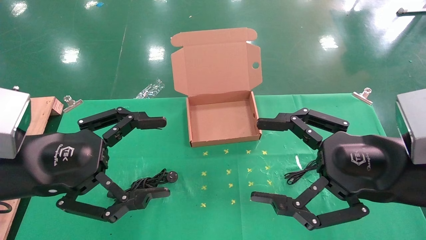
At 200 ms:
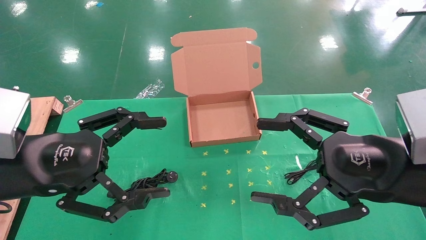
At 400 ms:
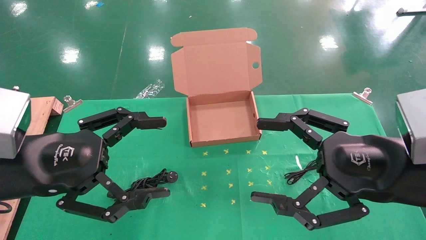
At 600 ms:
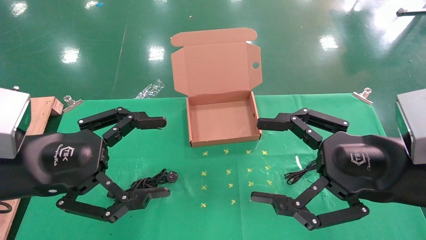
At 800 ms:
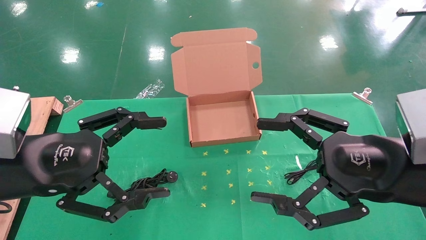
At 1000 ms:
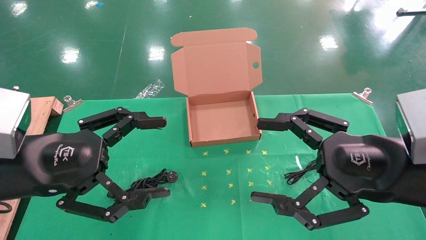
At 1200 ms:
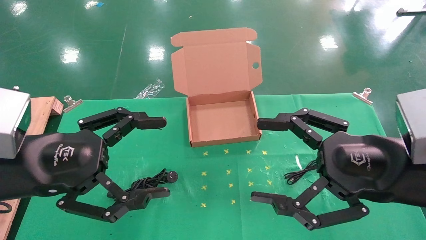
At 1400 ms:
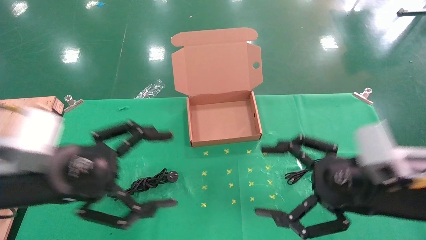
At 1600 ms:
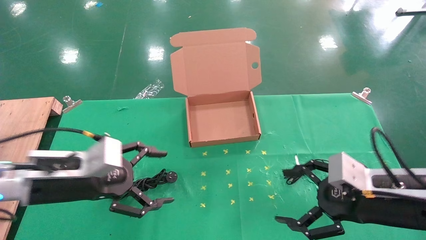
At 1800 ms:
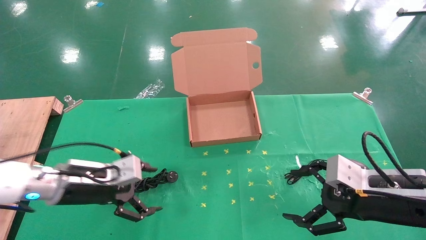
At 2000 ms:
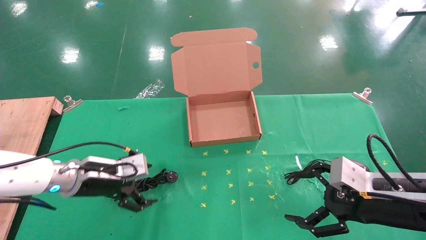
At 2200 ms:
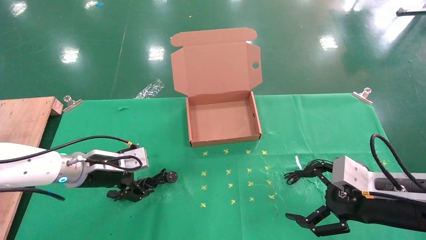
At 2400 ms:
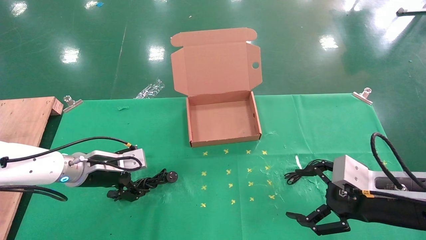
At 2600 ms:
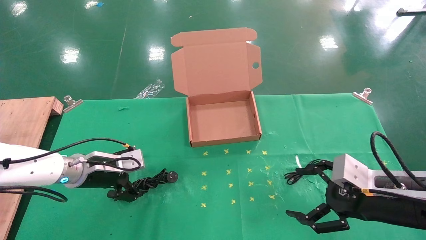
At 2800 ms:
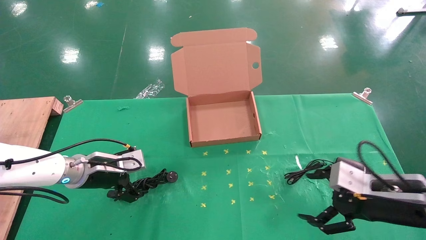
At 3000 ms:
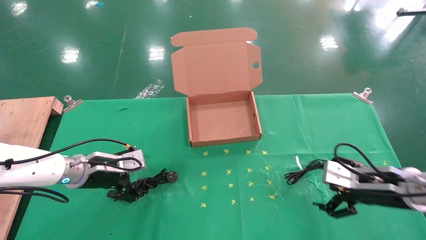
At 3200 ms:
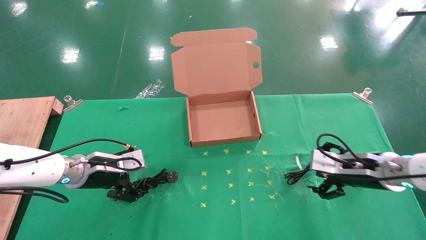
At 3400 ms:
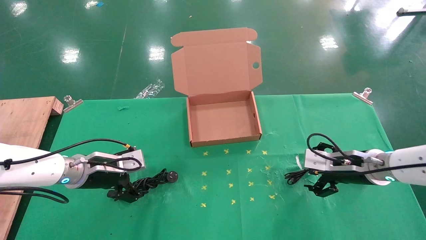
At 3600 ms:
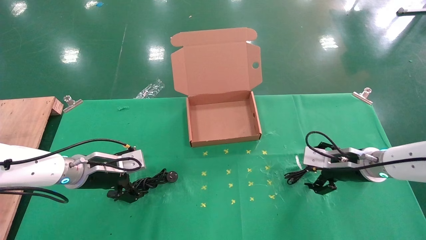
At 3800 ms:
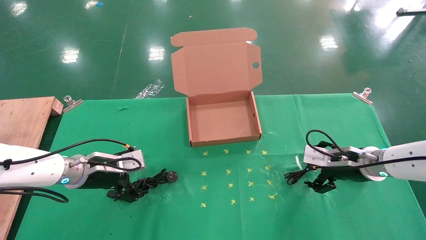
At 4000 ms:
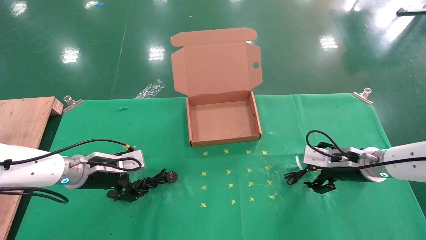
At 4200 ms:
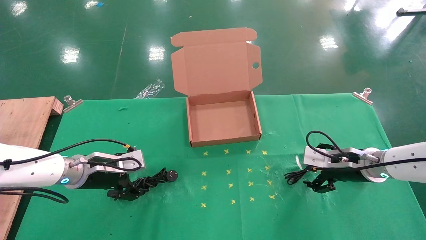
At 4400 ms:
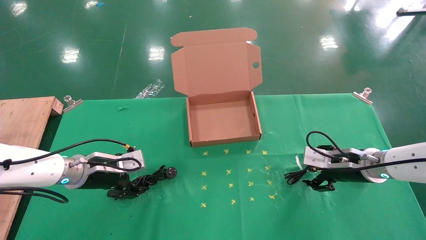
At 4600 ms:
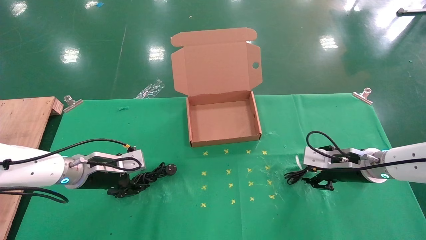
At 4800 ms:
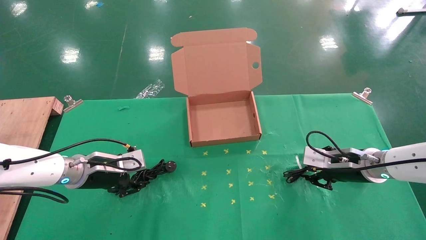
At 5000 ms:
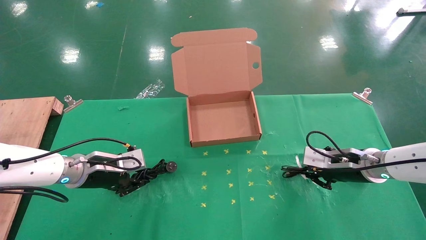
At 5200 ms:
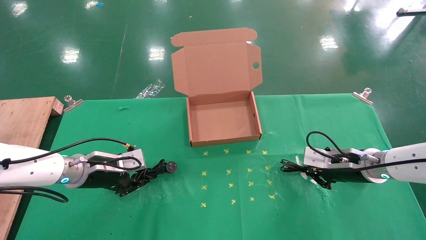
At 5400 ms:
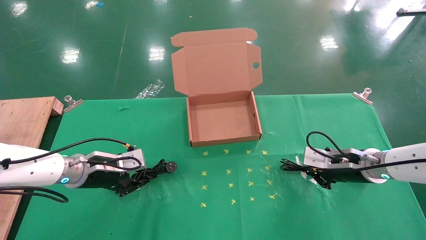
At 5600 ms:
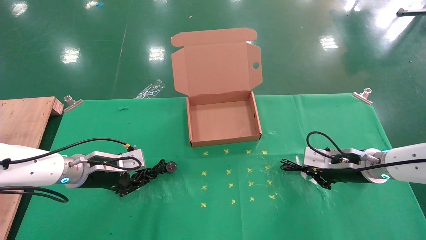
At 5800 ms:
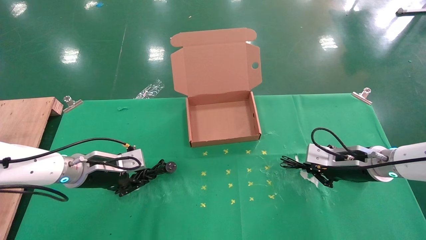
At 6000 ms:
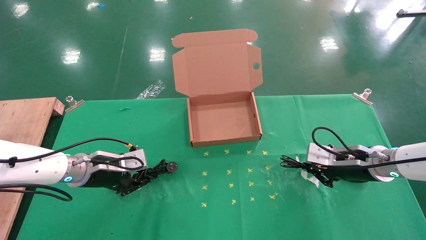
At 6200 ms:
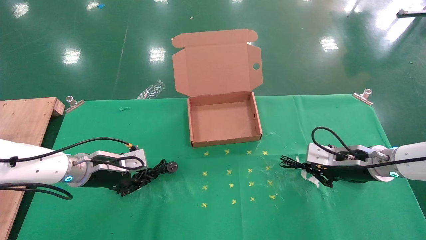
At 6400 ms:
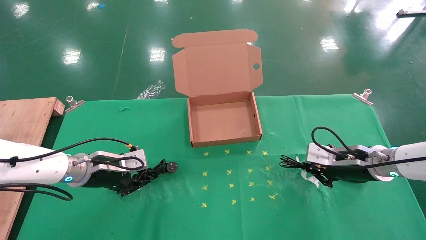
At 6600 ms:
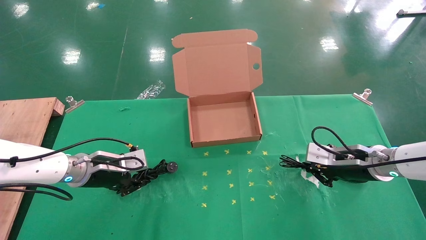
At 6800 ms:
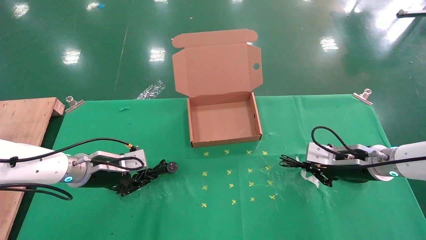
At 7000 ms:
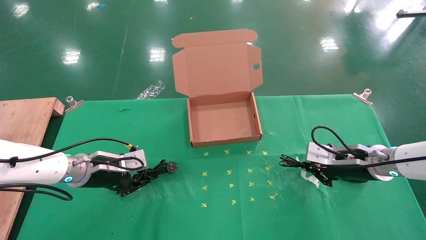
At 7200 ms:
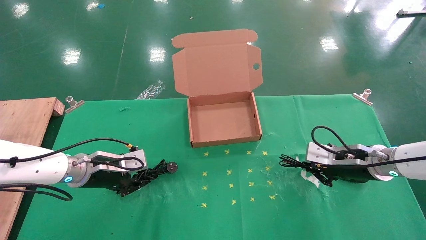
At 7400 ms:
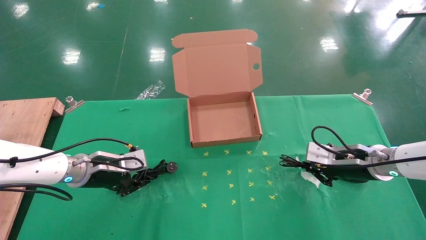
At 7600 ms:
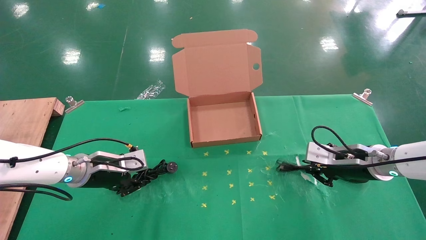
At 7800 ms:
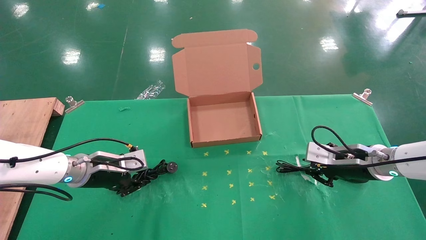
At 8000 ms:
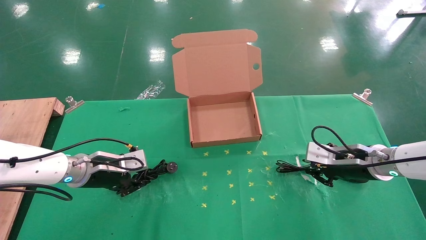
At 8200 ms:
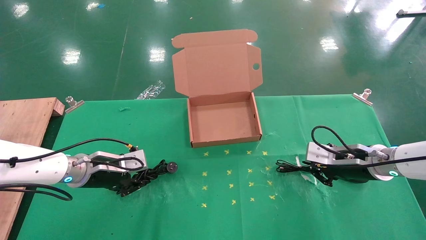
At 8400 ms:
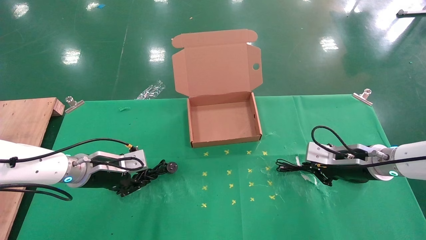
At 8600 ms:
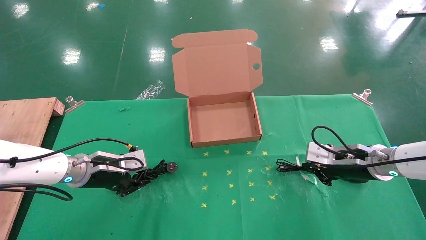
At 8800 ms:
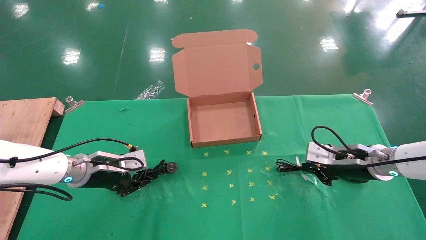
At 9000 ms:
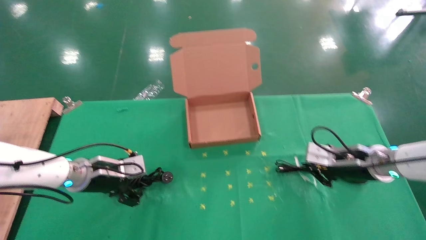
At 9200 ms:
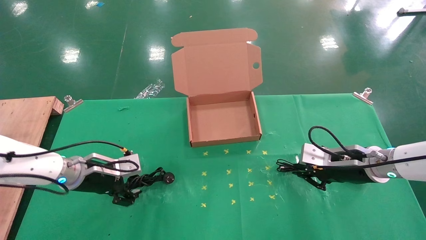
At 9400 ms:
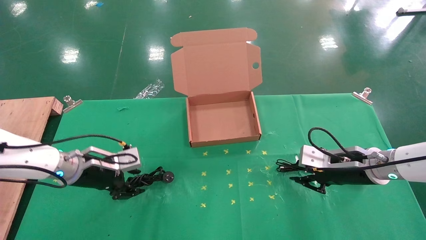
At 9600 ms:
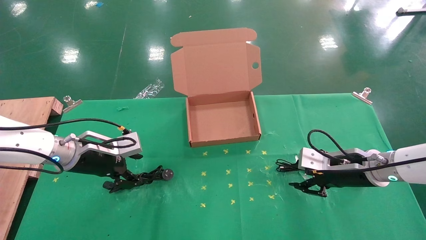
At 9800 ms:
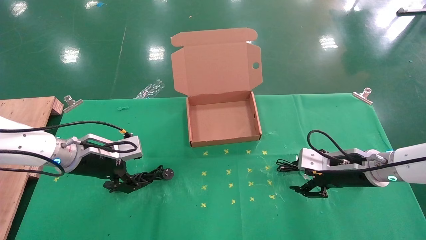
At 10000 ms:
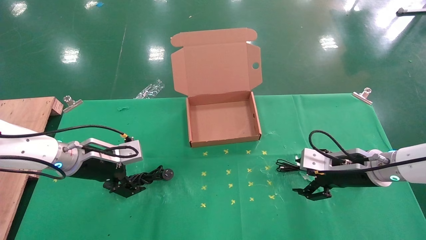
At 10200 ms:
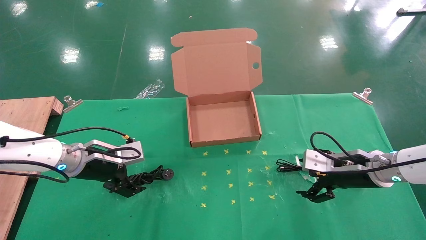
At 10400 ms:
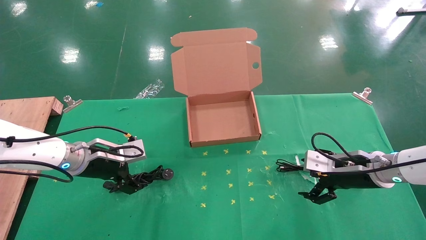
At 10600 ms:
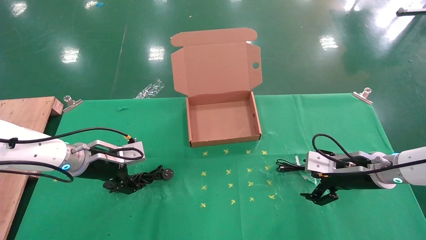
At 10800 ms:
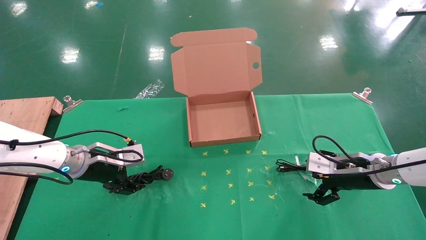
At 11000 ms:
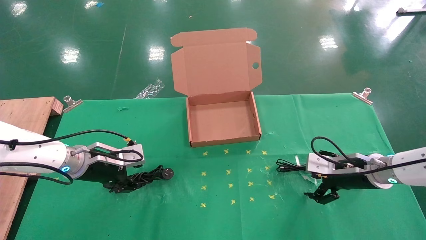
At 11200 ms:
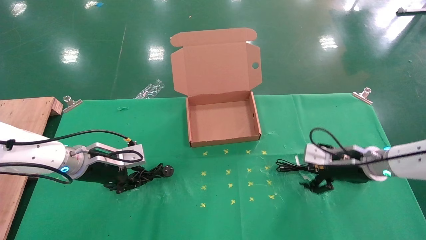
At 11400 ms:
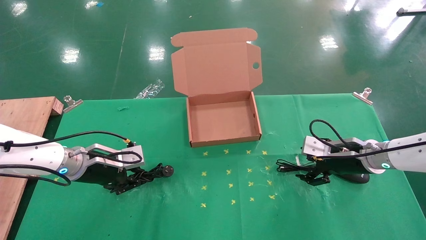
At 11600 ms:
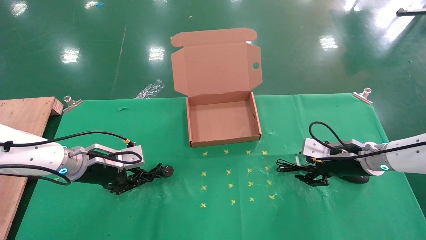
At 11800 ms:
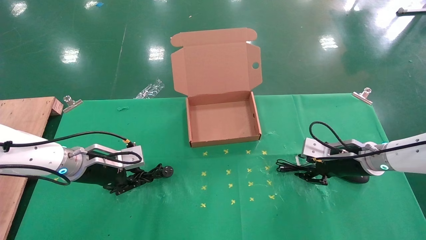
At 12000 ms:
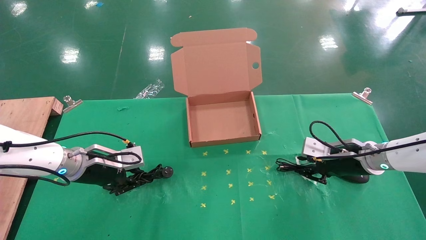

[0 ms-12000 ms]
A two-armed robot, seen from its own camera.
Task of the whole recording: grasp data cable left put into box grasp mouse right put into box.
0 ms to 1600 ms: The left gripper goes approximately 10 cm downward and forward, while the right gripper heads downward, covering approximately 10 cm.
1600 ms to 3000 ms: The right gripper travels forward by roughly 10 cm, while the left gripper travels forward and downward by some 10 cm.
3000 ms to 4400 ms: The right gripper shifts approximately 5 cm forward.
4400 ms to 6000 ms: The left gripper closes its fingers. The right gripper closes.
6000 ms to 7600 ms: The two grippers keep their place.
7600 ms to 9000 ms: There are only small adjustments of the grippers.
9000 ms to 10400 ms: The right gripper opens its fingers; the left gripper opens.
10400 ms to 12000 ms: The left gripper closes; the right gripper closes its fingers.

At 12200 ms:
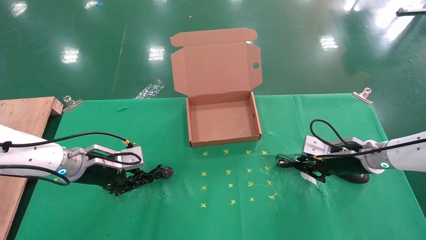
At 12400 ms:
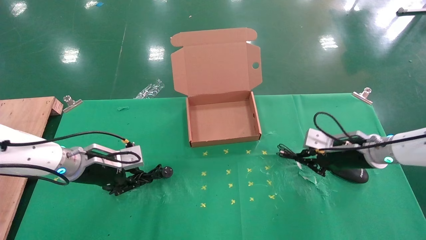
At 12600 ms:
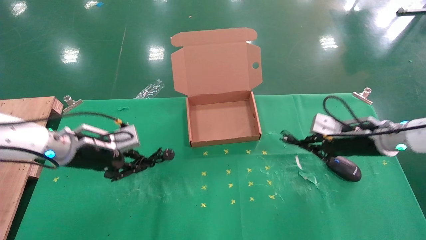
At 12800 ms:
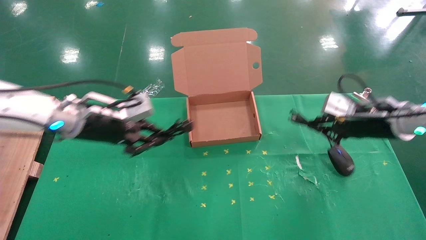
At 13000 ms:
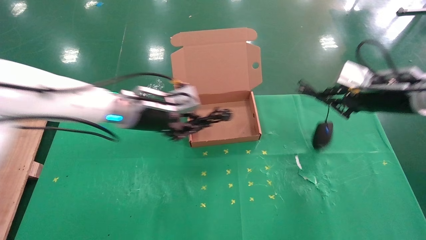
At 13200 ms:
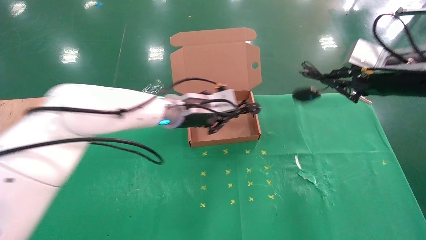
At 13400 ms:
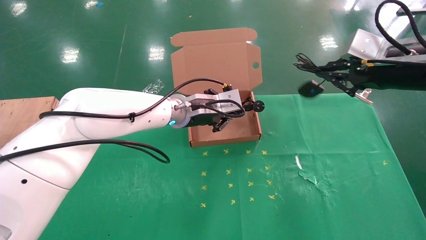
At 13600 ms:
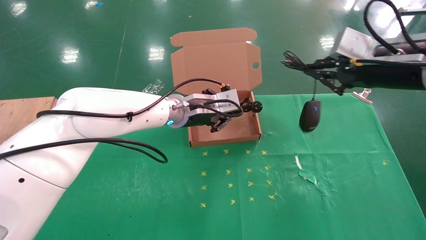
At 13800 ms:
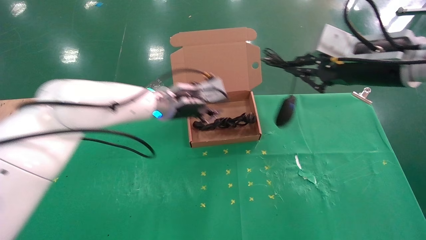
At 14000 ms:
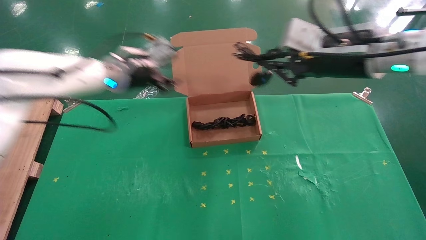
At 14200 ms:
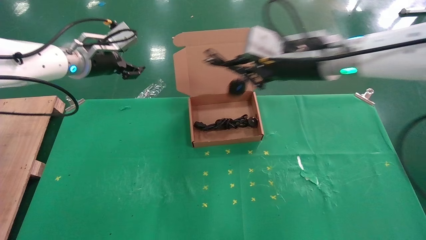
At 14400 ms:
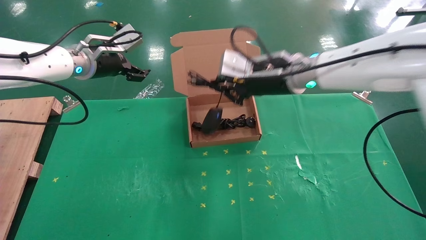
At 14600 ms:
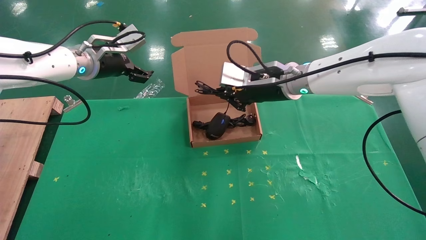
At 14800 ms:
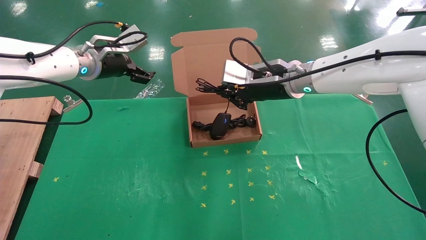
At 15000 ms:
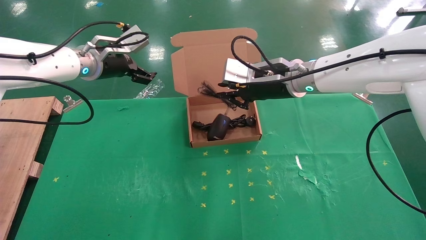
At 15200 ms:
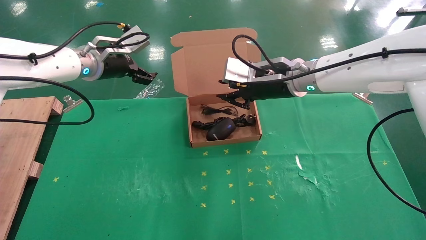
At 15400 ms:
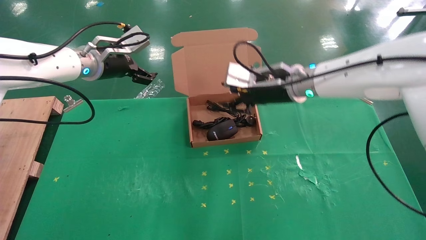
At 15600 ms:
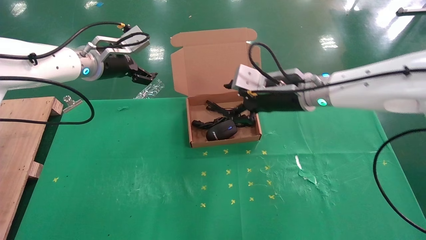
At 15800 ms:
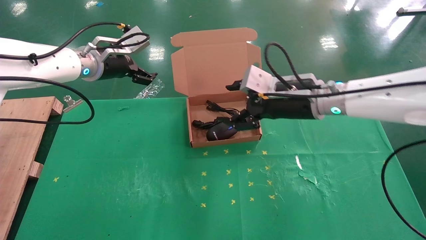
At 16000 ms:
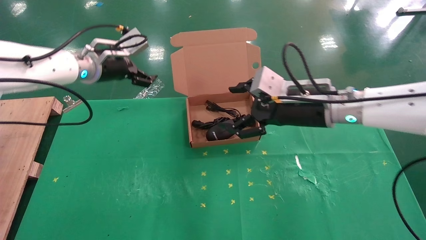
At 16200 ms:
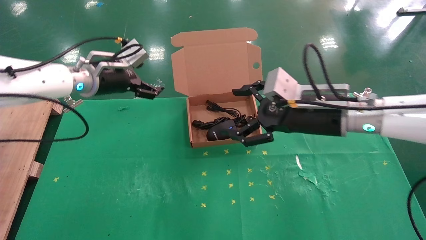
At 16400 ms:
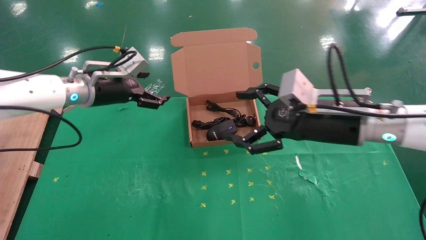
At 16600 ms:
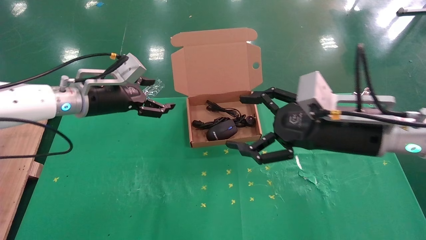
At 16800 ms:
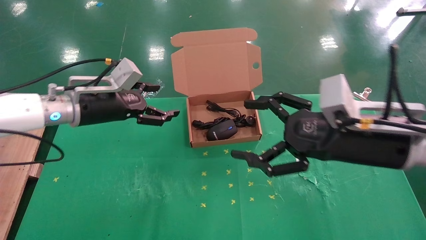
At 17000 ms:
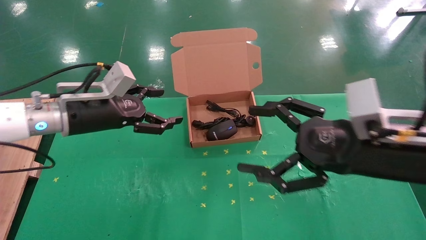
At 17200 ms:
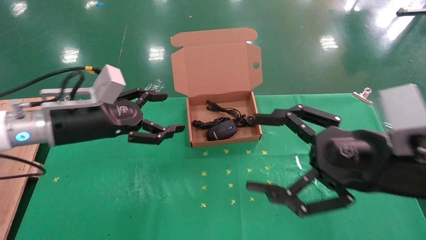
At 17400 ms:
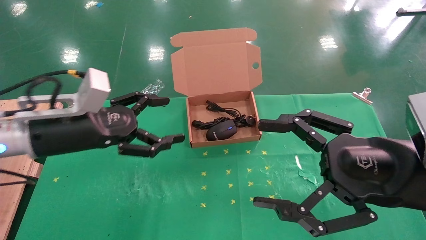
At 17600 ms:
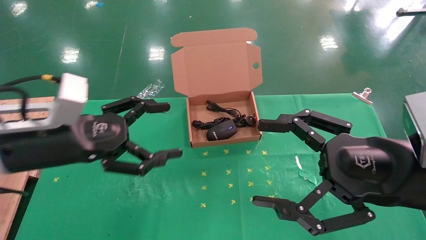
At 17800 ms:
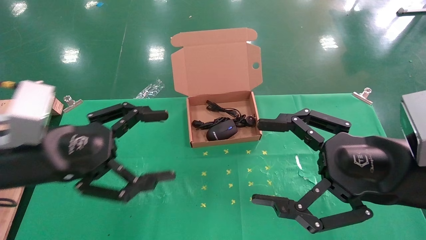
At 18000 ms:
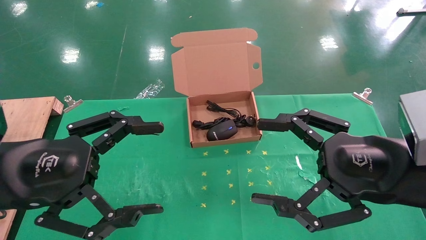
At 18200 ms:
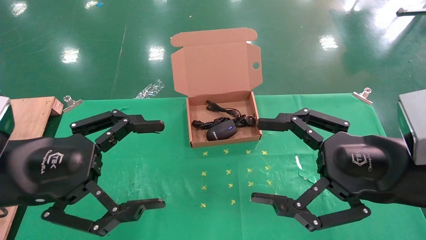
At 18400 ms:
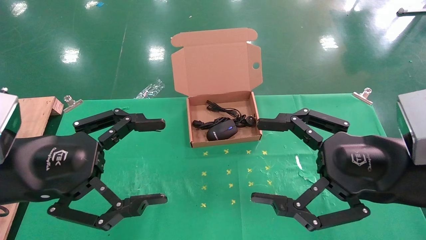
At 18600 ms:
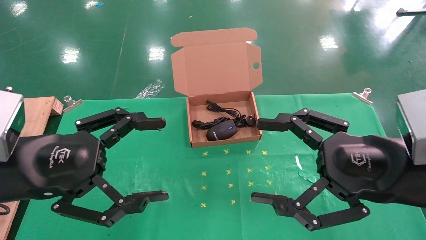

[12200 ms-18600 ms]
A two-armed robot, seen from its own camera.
Task of the whole recording: grasp data cable left put into box grasp mouse right put into box.
Step, 12400 ms to 15000 ms: Place the mouse and power cord into the box.
12200 ms to 13800 ms: The right gripper travels upward by roughly 20 cm. Meanwhile the left gripper is displaced to the right, upward and forward by about 20 cm.
13800 ms to 15400 ms: The right gripper moves to the left, forward and downward, about 15 cm. Meanwhile the left gripper heads to the left and upward, covering approximately 15 cm, and opens.
15400 ms to 17000 ms: The right gripper travels backward and to the right by about 20 cm, and opens its fingers. Meanwhile the left gripper moves backward and downward, roughly 15 cm.
17000 ms to 18600 ms: The left gripper moves backward, some 15 cm.
